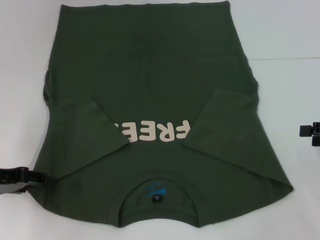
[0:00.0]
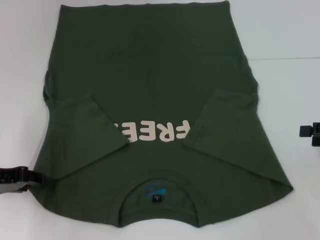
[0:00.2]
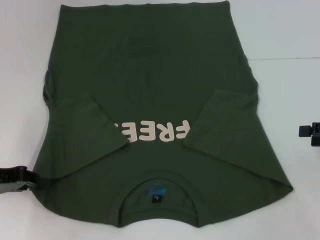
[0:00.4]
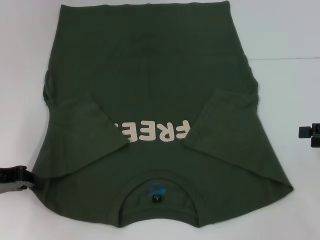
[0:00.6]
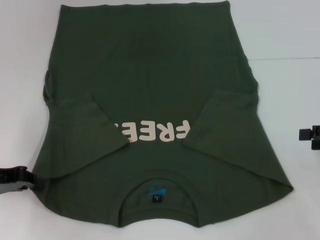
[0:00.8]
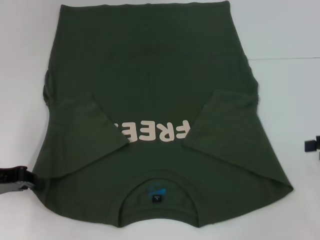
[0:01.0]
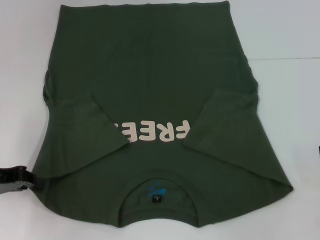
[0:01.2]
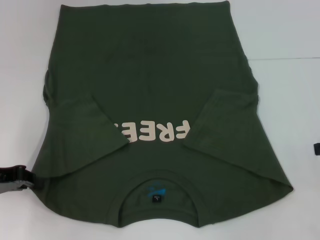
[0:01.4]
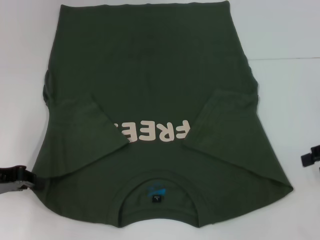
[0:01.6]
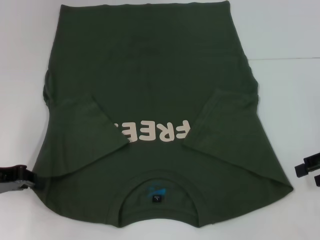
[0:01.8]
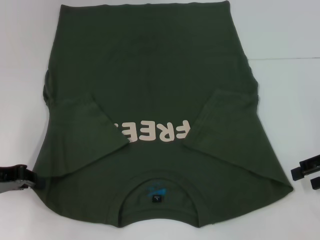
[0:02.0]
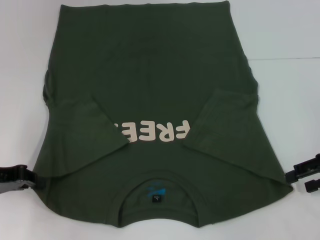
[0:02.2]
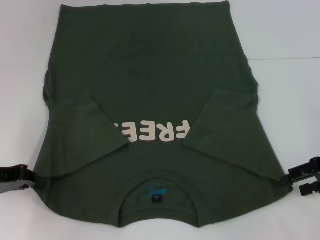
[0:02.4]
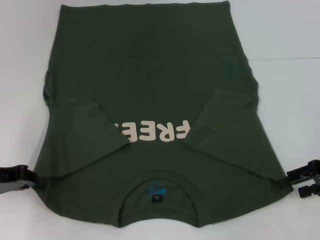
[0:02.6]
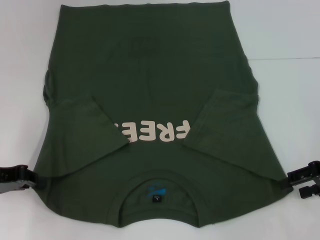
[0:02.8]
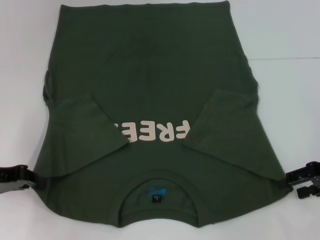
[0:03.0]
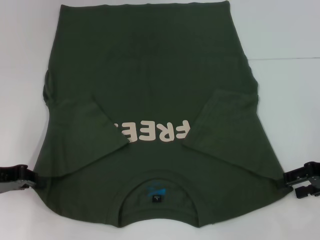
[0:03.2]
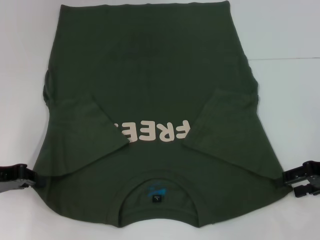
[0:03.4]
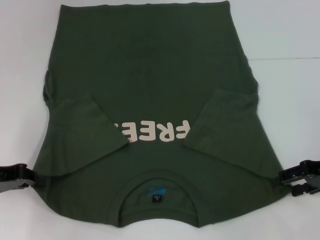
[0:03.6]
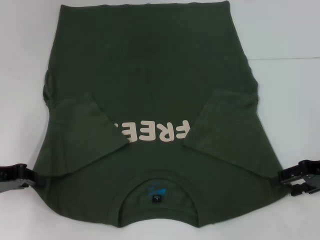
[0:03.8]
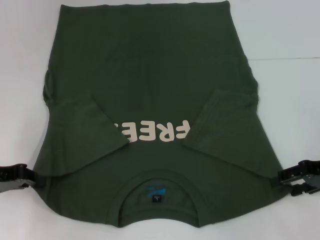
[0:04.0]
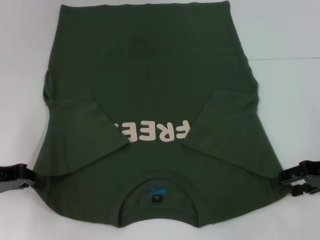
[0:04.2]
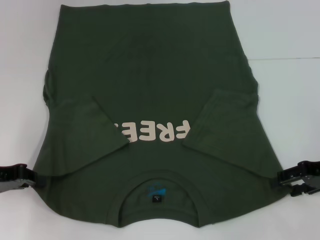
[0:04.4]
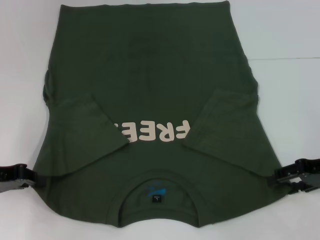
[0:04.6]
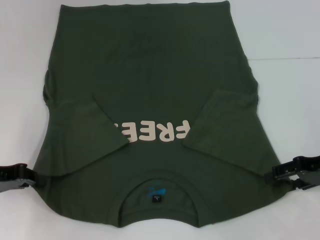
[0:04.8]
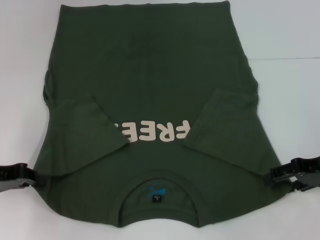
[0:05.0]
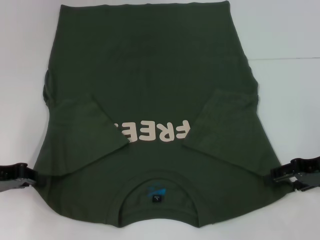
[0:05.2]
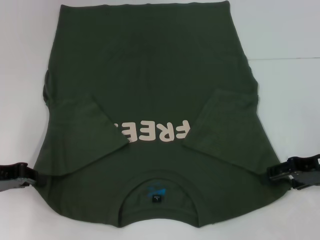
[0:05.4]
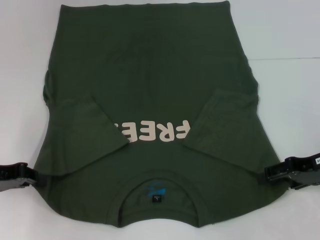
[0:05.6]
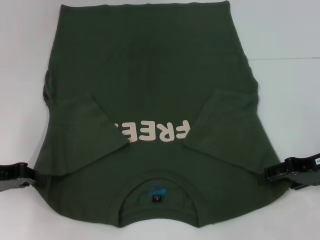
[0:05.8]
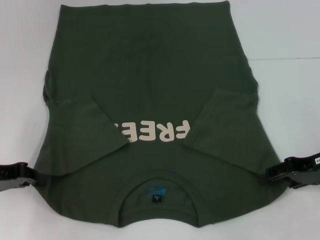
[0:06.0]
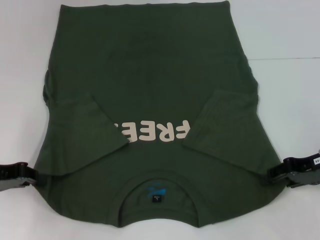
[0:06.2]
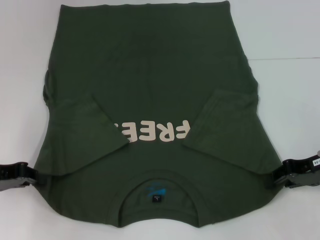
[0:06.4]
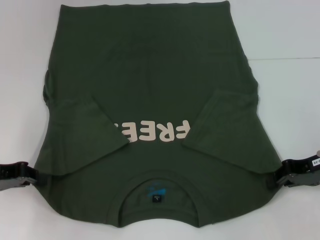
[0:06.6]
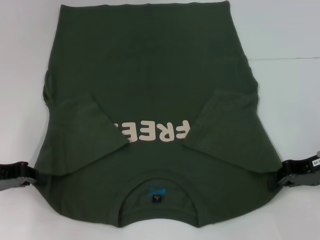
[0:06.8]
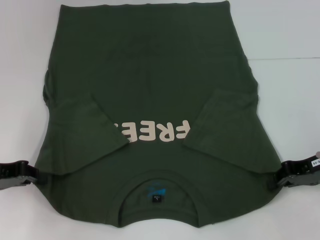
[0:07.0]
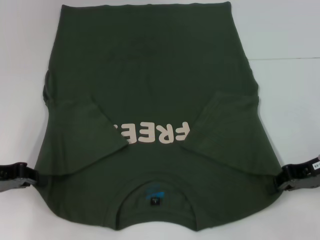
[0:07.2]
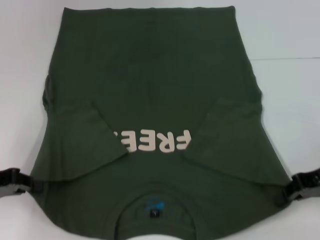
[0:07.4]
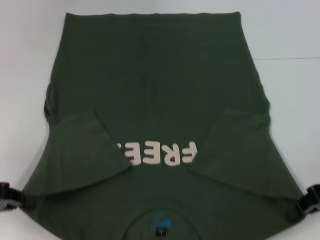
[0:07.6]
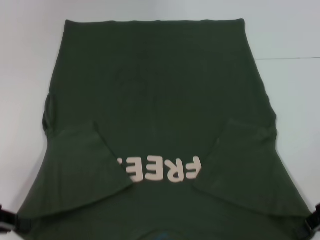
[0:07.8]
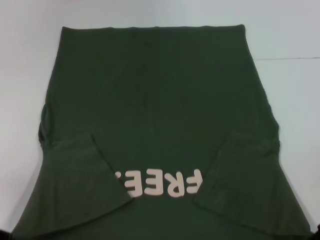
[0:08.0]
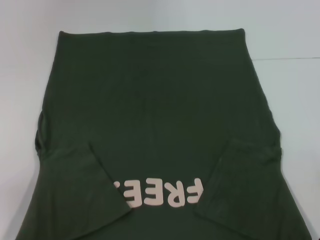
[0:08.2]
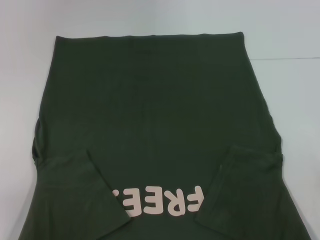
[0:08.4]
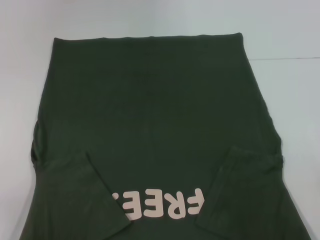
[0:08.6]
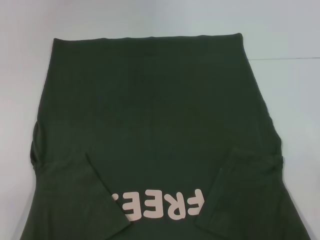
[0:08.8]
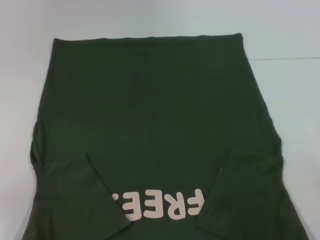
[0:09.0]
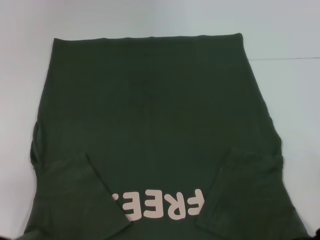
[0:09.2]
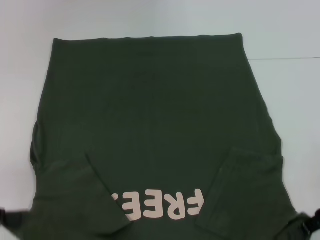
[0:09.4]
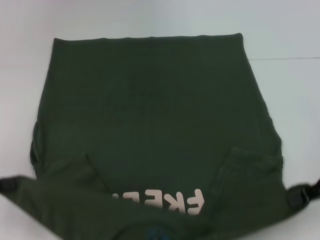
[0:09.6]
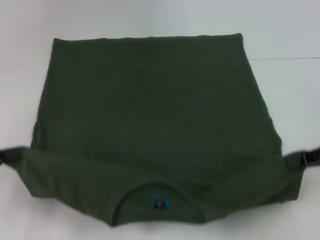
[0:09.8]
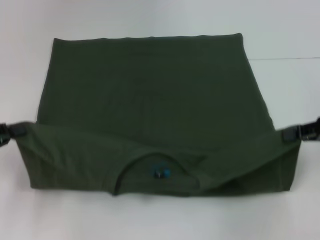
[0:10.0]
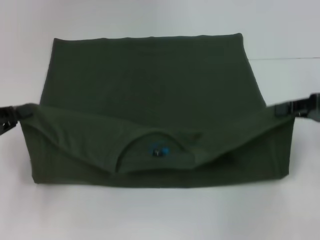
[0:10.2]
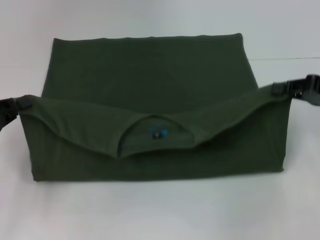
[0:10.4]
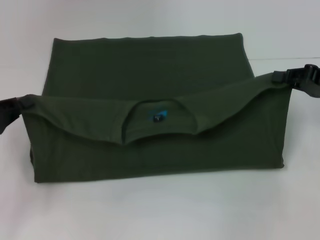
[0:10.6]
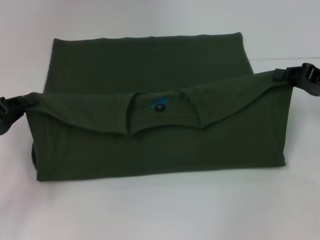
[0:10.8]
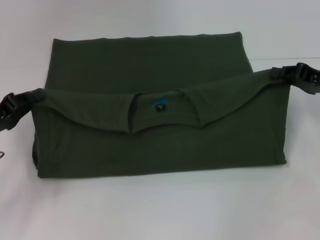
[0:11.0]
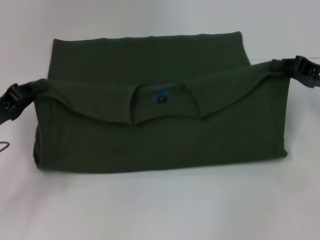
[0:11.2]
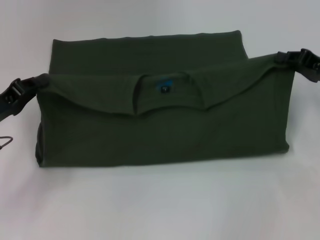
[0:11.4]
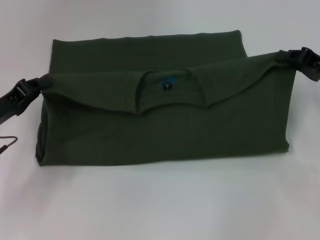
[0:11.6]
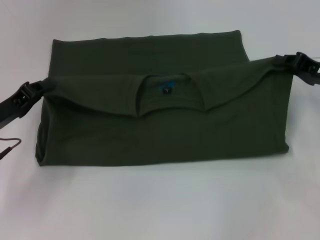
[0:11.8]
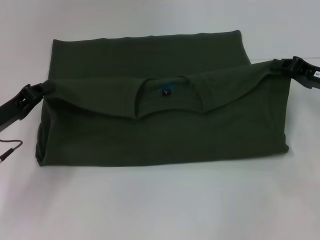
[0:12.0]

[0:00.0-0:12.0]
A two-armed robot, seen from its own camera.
0:00.0 to 0:01.6: The left gripper closes its fingers.
0:01.6 to 0:03.0: The right gripper ends up about 5 cm from where it was.
0:03.0 to 0:04.4: Neither gripper changes place.
0:04.4 to 0:06.0: The grippers move only a little.
0:06.0 to 0:07.6: The right gripper closes up.
0:07.6 to 0:09.0: The left gripper travels backward by some 5 cm.
0:09.0 to 0:10.4: Both grippers move forward, some 10 cm.
0:10.4 to 0:12.0: The right gripper ends up roughly 5 cm from where it was, while the left gripper heads to the right, covering some 5 cm.

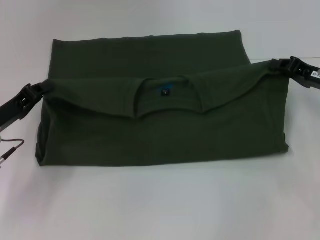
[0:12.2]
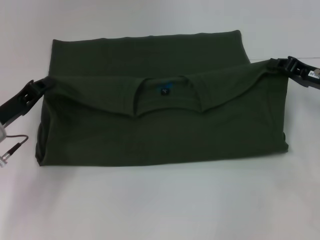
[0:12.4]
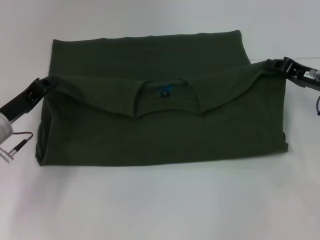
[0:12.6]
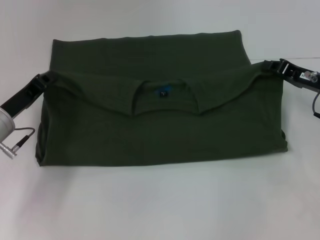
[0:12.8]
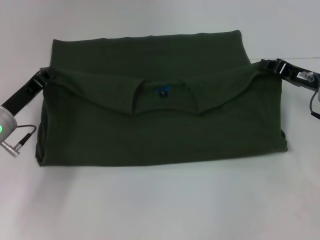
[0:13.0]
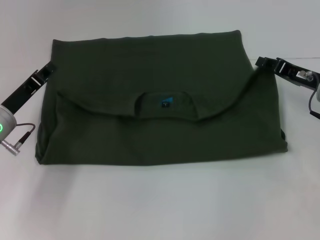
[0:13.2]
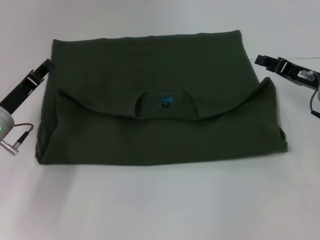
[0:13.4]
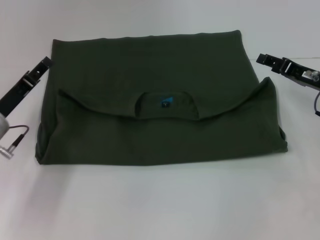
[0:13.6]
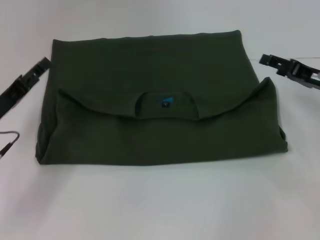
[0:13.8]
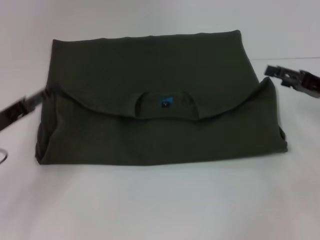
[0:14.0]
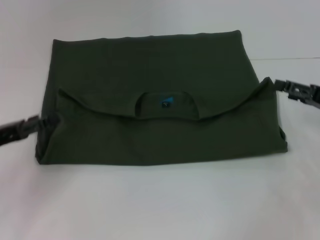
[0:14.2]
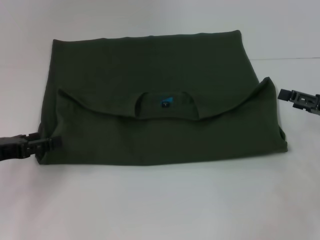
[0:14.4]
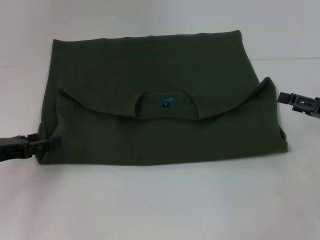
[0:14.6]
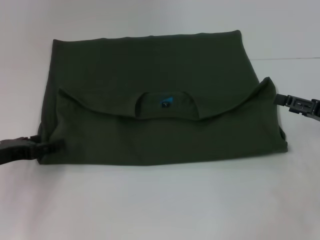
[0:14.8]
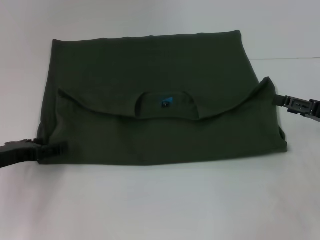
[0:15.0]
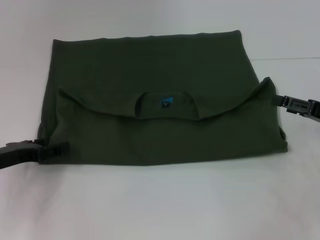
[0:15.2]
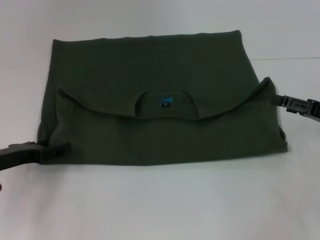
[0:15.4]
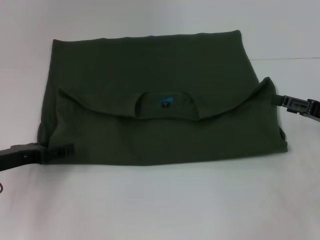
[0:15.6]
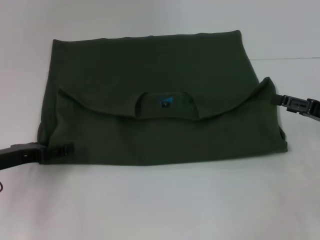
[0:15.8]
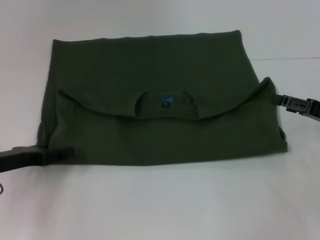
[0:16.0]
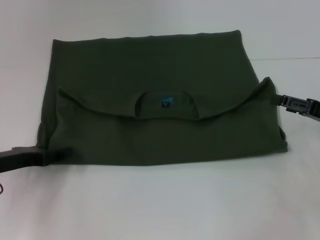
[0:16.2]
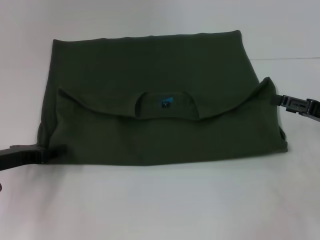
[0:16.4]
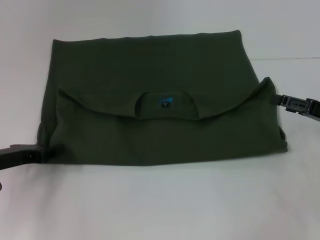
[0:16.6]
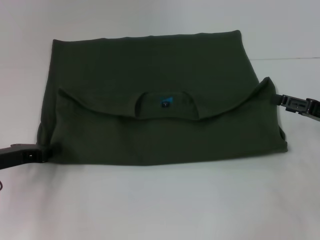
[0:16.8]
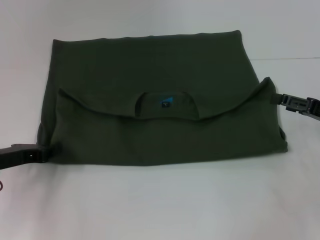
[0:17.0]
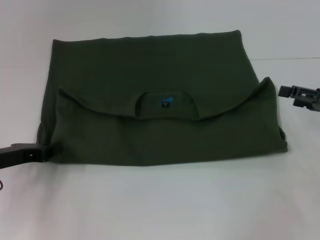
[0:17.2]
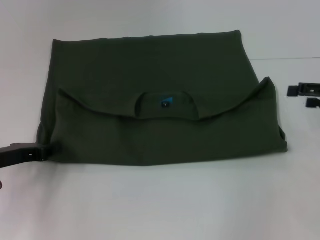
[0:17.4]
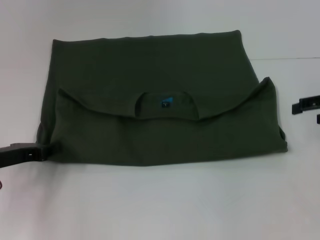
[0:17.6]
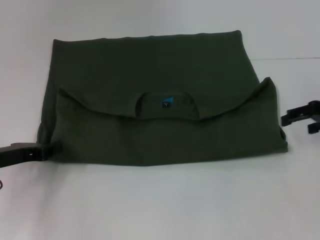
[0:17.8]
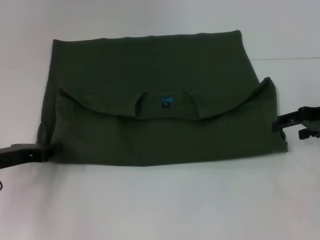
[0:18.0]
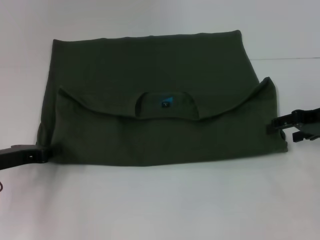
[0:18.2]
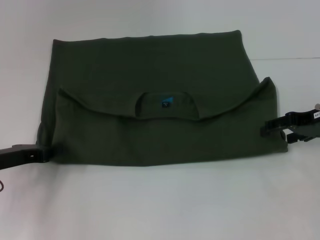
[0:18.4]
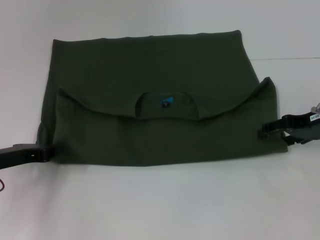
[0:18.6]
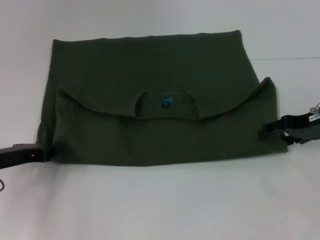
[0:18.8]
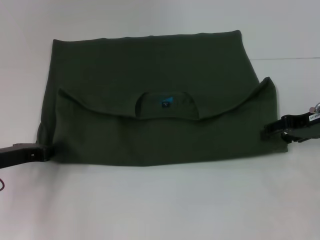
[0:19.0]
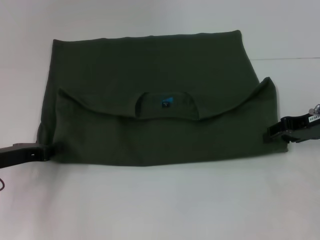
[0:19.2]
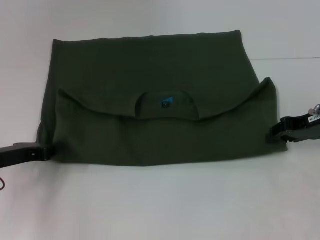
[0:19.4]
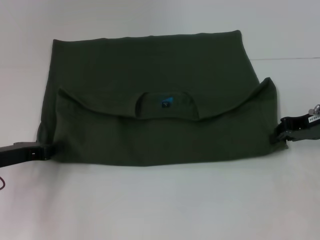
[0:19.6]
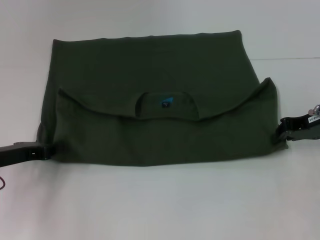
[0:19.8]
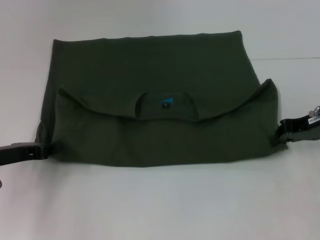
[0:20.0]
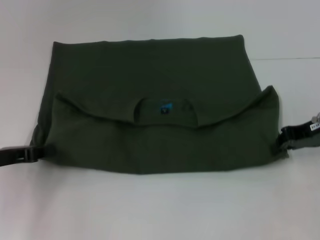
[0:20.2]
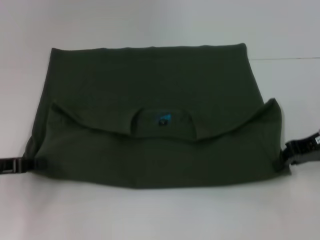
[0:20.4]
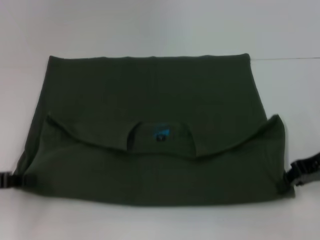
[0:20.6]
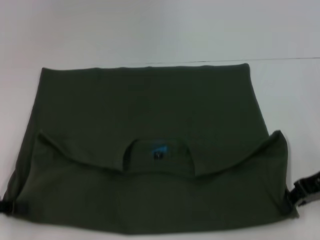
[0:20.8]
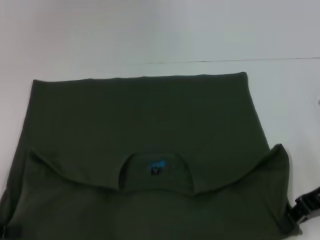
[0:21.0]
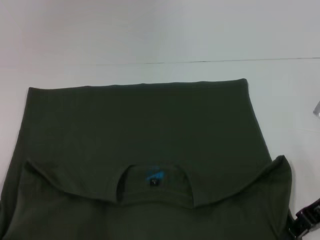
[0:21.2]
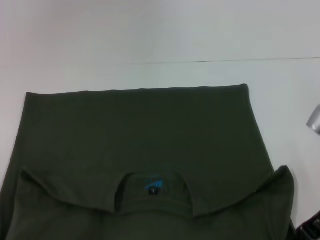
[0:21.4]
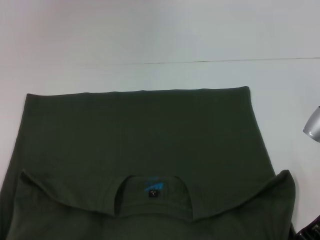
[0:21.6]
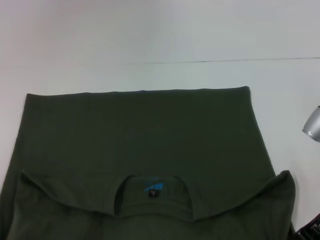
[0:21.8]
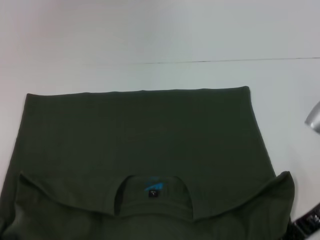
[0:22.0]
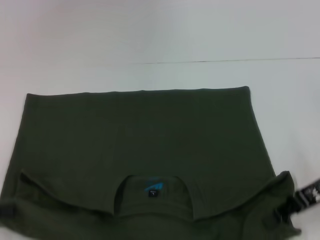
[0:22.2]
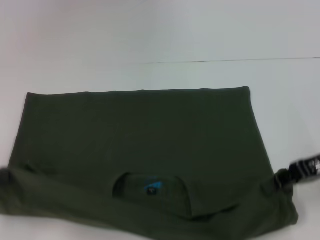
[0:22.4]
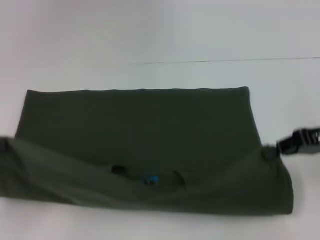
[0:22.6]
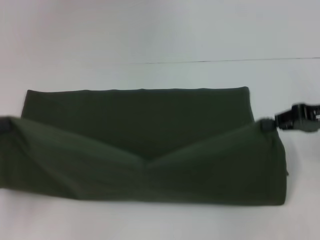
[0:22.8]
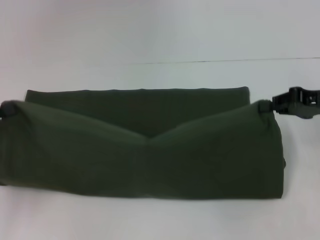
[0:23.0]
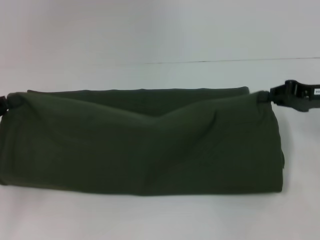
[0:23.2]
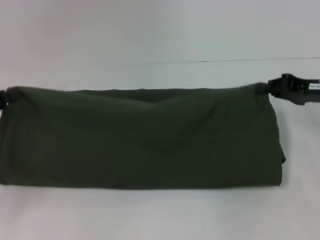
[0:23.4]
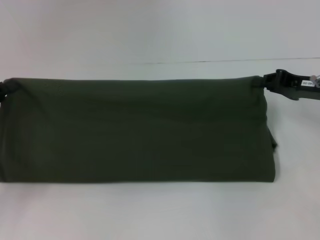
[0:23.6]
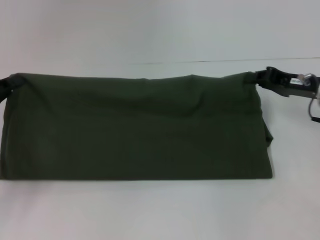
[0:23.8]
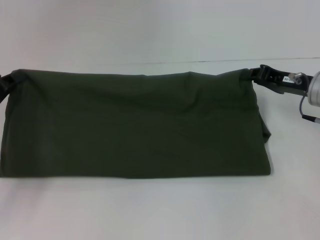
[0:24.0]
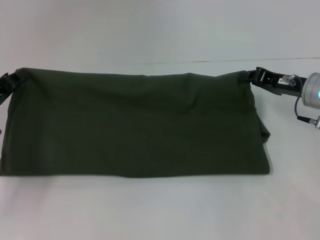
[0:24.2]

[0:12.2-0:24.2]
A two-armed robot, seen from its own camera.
Step, 0:14.2 to 0:21.4: Pull the clothes with your left hand.
Step, 0:14.2 to 0:21.4: Pull the clothes with your right hand.
0:12.2 to 0:13.8: The left gripper opens, while the right gripper opens.
0:13.8 to 0:15.2: The right gripper goes roughly 5 cm backward.
0:16.6 to 0:18.2: The right gripper changes place by roughly 10 cm.
0:18.2 to 0:19.8: The right gripper closes up.
0:19.8 to 0:21.2: The right gripper goes some 10 cm backward. The left gripper shifts approximately 10 cm backward and to the left.
0:21.2 to 0:22.6: The right gripper ends up approximately 5 cm from where it was. The left gripper changes place by approximately 5 cm.
0:22.6 to 0:24.2: The left gripper moves forward, to the right and downward, approximately 15 cm, while the right gripper moves forward and downward, roughly 10 cm.
